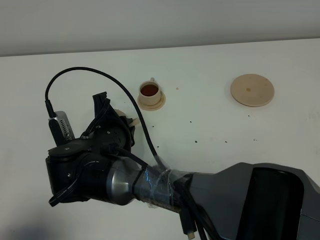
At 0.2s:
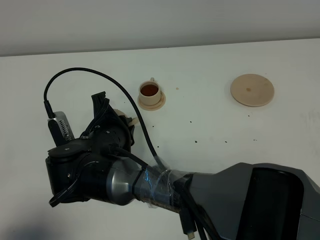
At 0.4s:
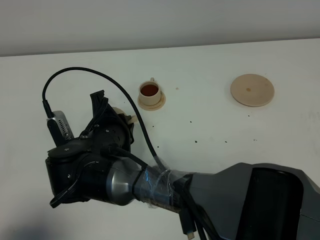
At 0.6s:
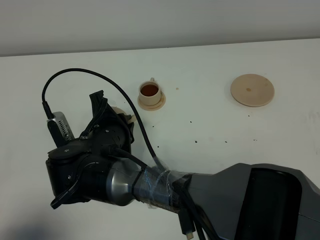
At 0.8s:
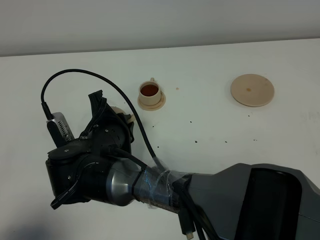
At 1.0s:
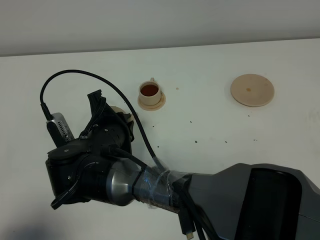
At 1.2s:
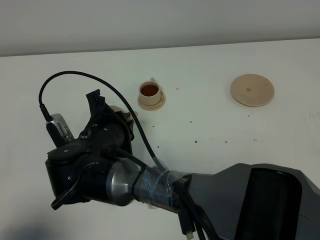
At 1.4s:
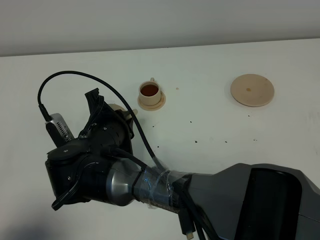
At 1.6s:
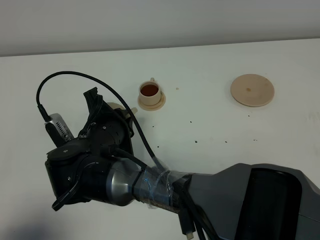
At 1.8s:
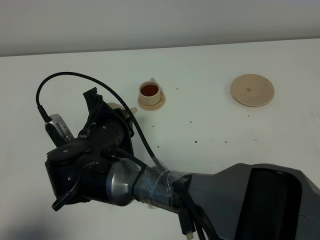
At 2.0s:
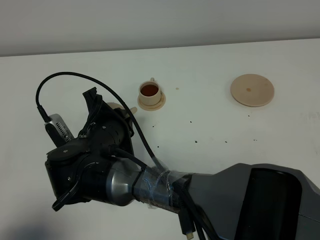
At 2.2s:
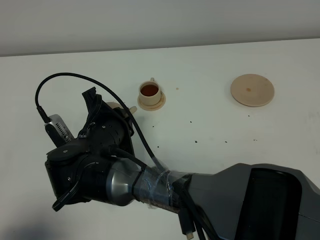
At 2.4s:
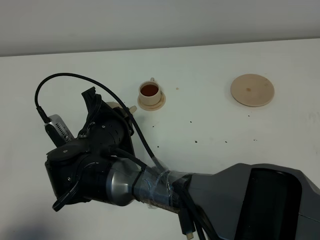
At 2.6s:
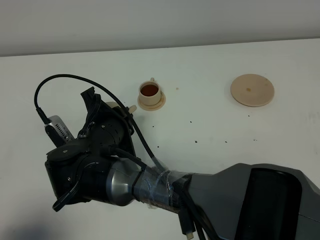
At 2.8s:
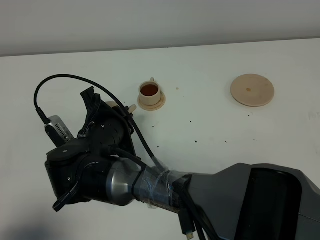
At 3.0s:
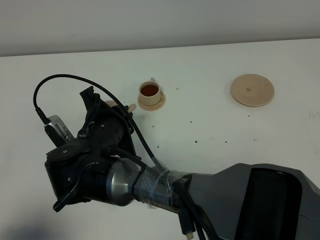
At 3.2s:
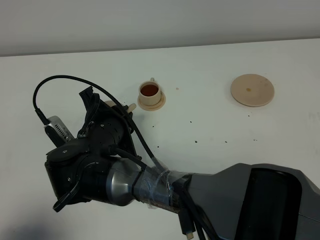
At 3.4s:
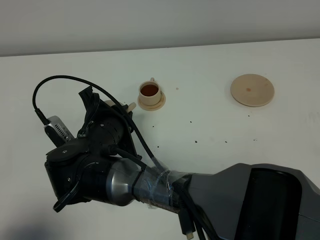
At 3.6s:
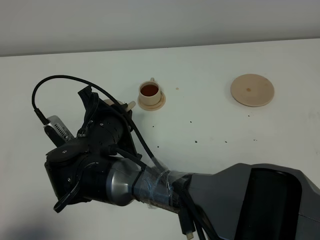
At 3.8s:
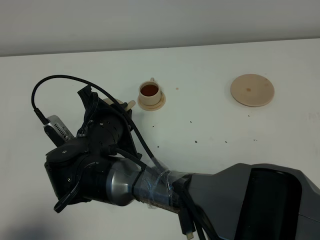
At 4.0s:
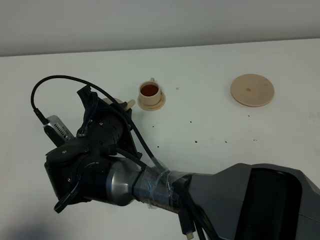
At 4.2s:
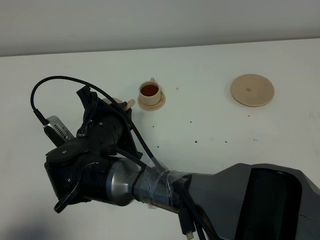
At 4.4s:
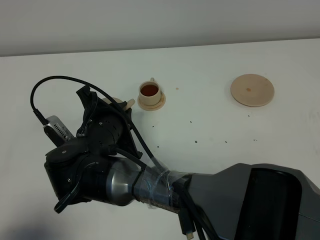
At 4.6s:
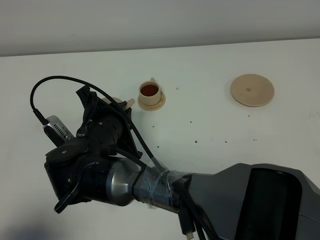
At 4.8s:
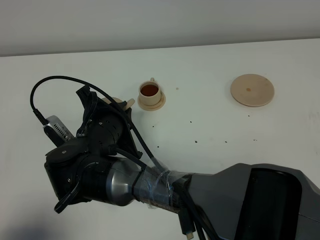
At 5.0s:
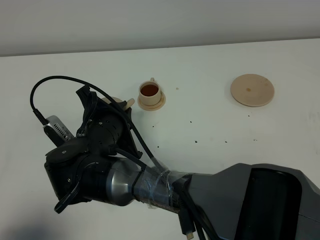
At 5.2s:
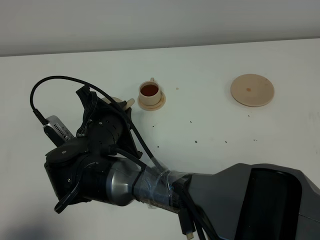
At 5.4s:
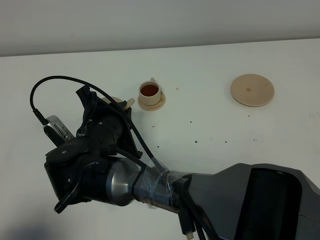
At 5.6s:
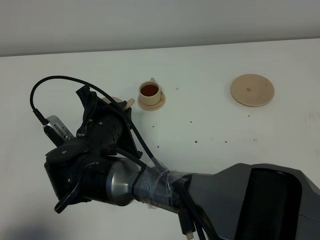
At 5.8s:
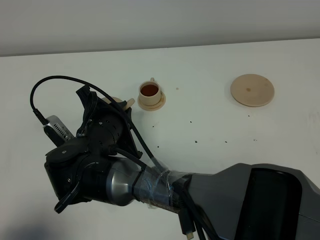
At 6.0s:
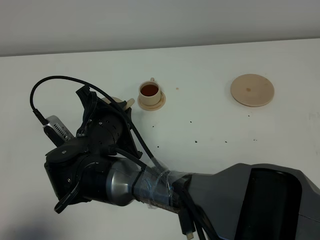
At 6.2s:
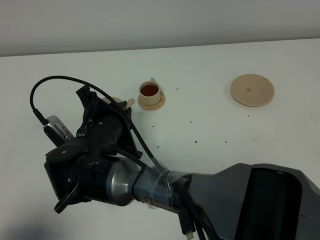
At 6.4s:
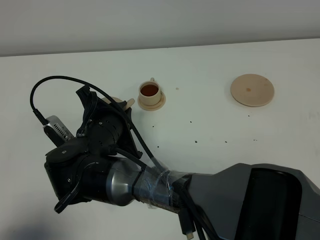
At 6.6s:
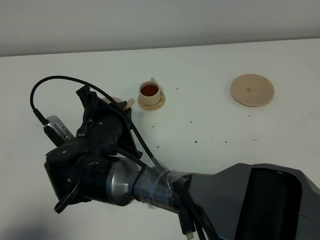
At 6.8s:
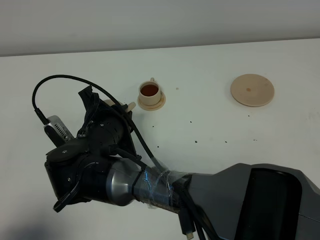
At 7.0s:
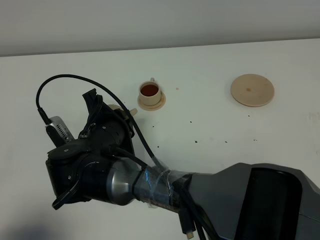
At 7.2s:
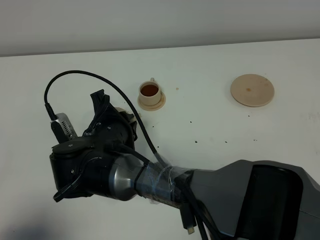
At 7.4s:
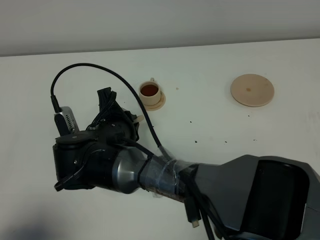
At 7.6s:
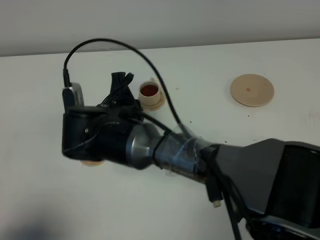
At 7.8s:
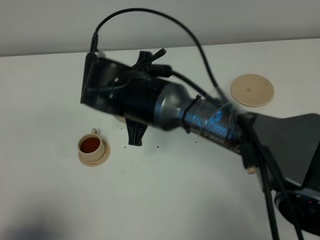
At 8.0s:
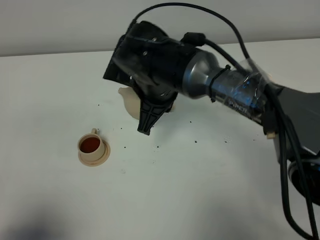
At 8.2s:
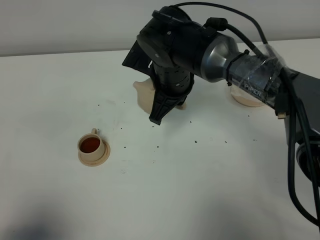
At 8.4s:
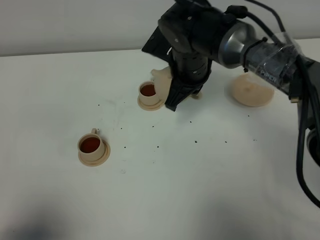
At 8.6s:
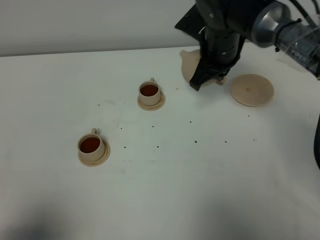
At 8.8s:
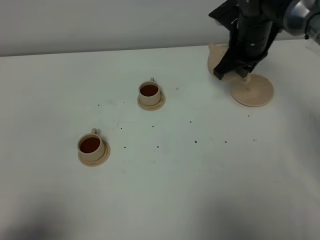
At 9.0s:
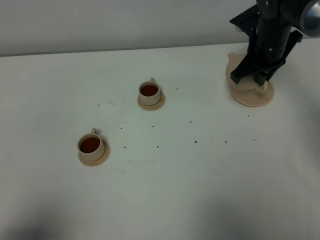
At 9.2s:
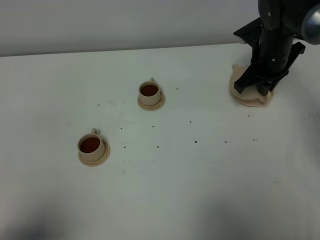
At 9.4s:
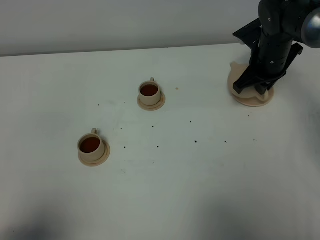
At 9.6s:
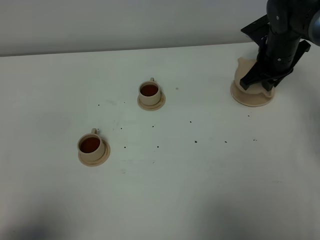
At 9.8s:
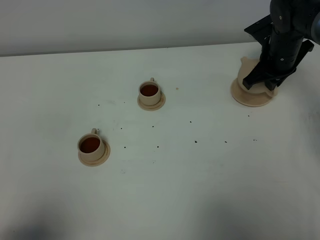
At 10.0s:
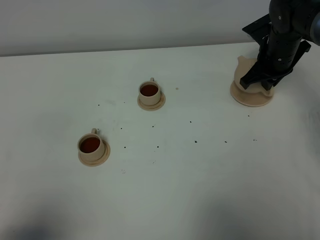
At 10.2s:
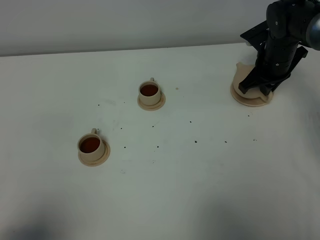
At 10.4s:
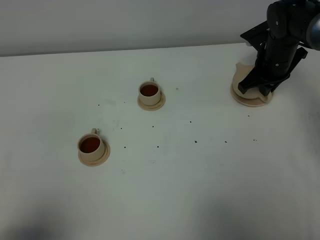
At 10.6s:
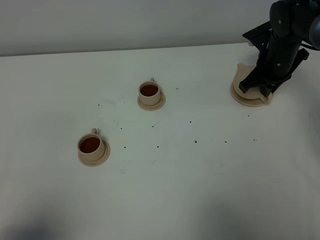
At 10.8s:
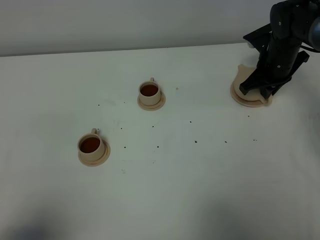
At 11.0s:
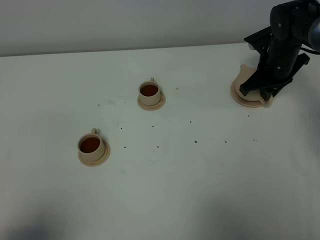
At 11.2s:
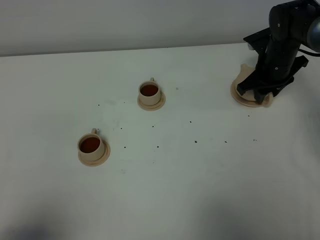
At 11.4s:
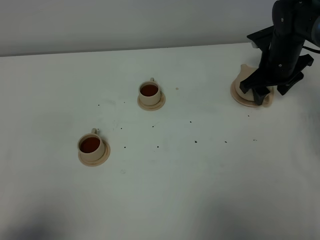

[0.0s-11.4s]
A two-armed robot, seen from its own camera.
Task of the whole recording: grasp the brown teapot and pour the tea into the two brown teacups one by one, put the brown teapot back in its original place.
Step, 0.0s to 7.4s: Pour tea into the teacup with the right gripper.
0.0s to 2.8s: The grippers make only small movements.
2.8s to 5.6s: Both grippers stay put.
5.6s to 7.2s: There are only small adjustments of the grippers.
7.2s to 8.6s: The right gripper shifts roughly 30 cm to the right, forward and upward.
8.6s to 10.0s: The right gripper heads to the right and downward, covering approximately 10 cm.
10.0s to 11.4s: The right gripper opens.

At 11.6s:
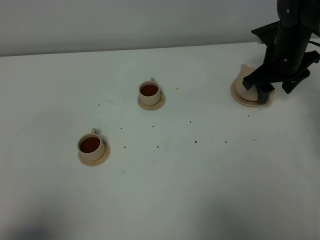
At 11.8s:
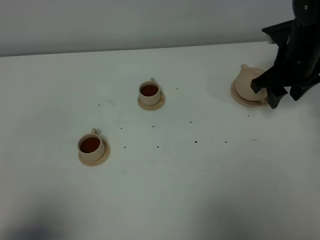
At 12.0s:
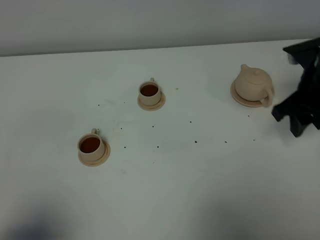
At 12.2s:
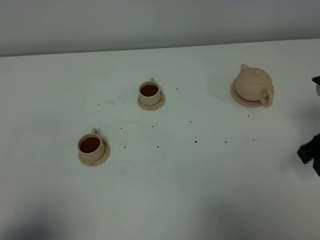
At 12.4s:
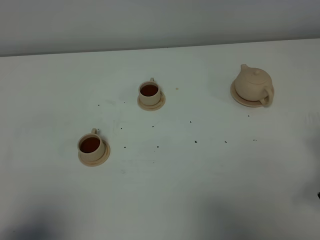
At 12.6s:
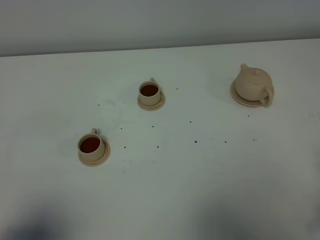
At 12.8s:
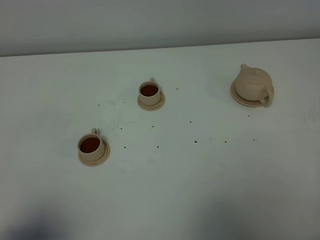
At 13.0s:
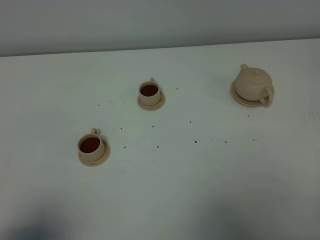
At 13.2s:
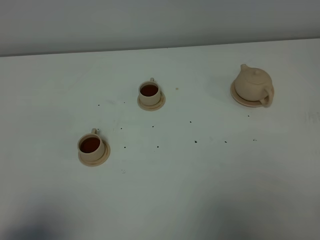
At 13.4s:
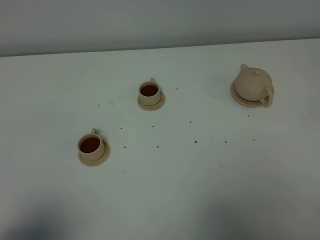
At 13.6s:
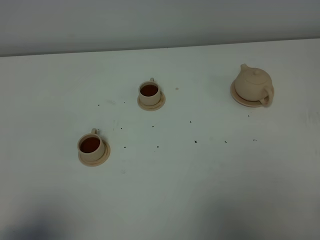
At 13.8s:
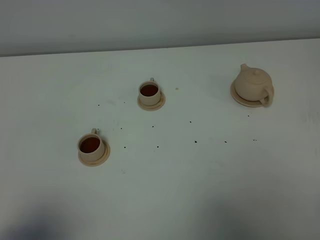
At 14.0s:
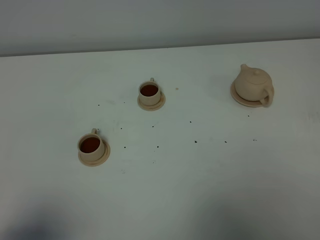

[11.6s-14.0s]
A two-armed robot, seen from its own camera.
Task of the whole recording: grasp the brown teapot and pour the tea into the two brown teacups one by one, put the brown teapot back in its original place.
11.6s to 12.8s: The right gripper heads backward, covering about 35 cm.

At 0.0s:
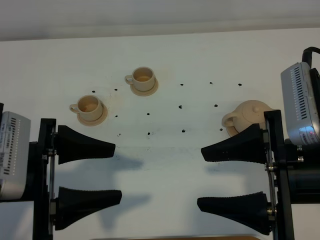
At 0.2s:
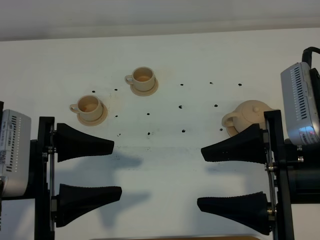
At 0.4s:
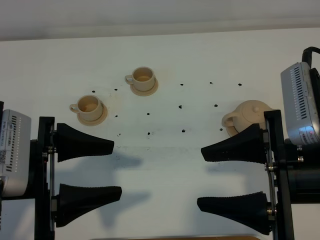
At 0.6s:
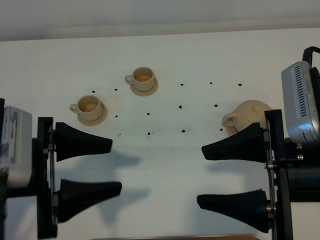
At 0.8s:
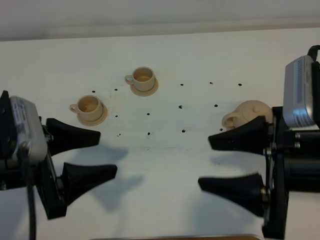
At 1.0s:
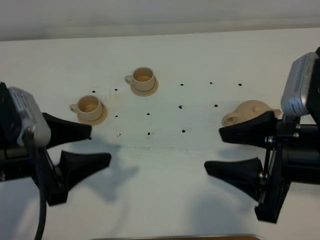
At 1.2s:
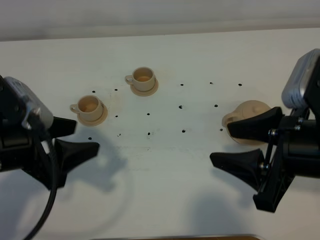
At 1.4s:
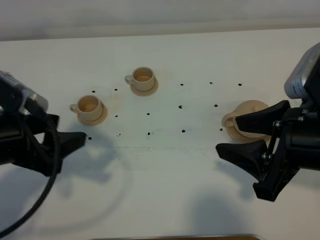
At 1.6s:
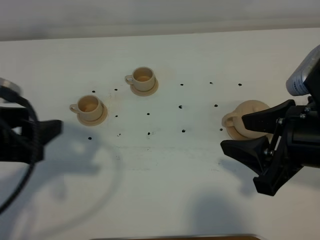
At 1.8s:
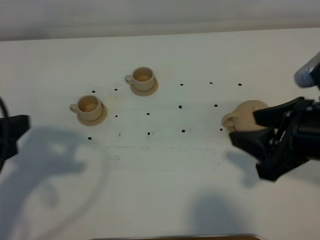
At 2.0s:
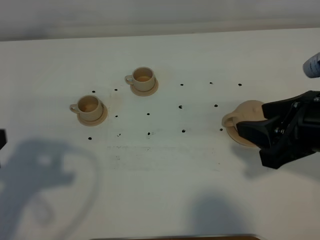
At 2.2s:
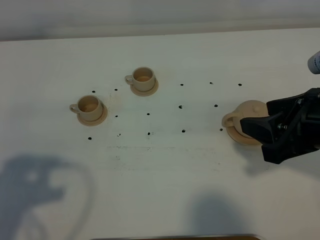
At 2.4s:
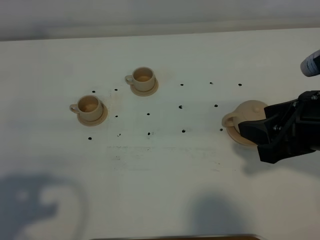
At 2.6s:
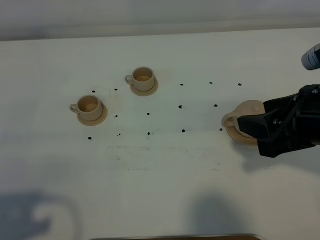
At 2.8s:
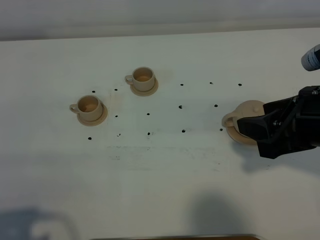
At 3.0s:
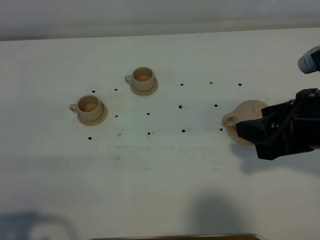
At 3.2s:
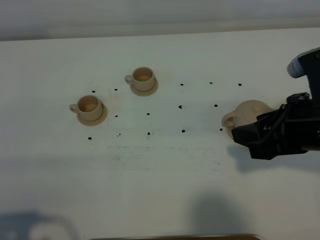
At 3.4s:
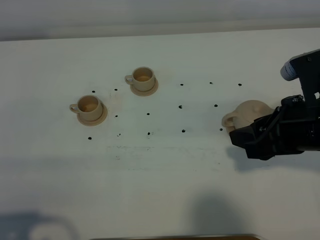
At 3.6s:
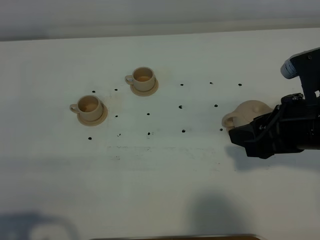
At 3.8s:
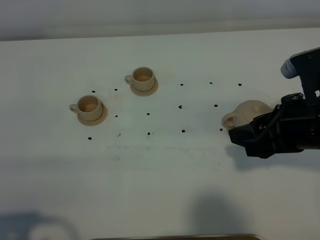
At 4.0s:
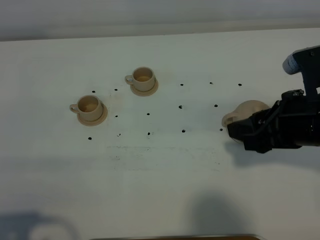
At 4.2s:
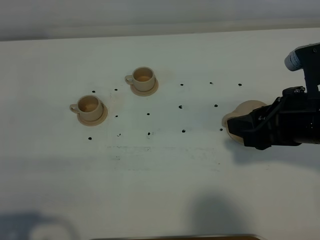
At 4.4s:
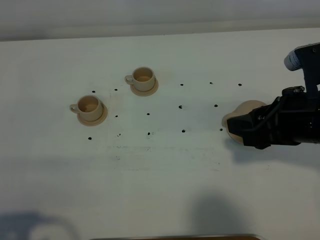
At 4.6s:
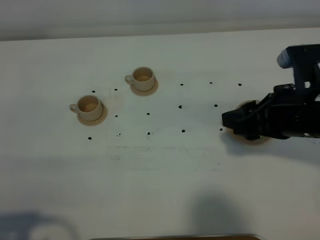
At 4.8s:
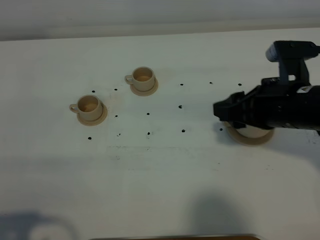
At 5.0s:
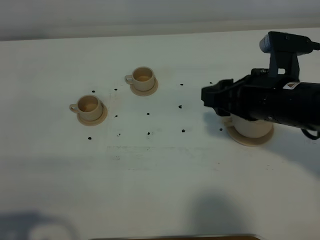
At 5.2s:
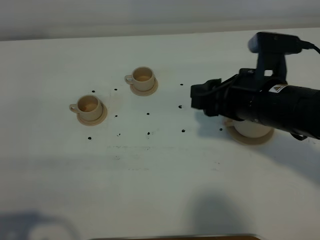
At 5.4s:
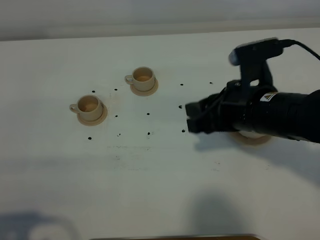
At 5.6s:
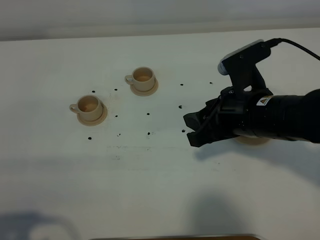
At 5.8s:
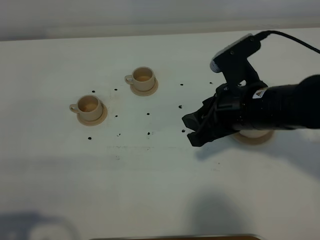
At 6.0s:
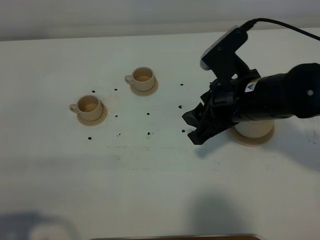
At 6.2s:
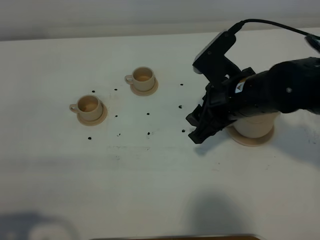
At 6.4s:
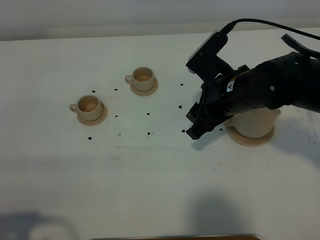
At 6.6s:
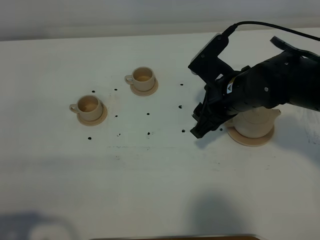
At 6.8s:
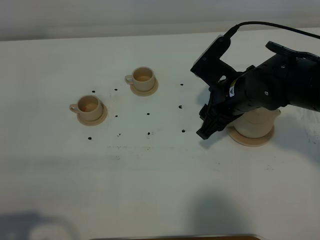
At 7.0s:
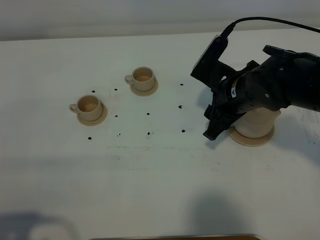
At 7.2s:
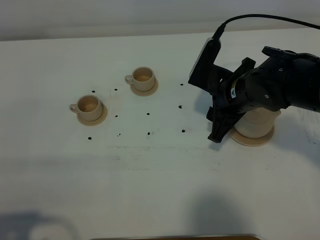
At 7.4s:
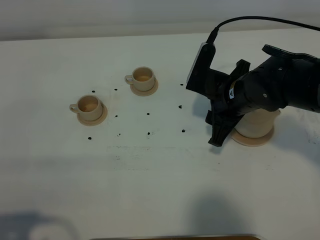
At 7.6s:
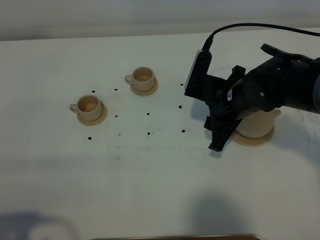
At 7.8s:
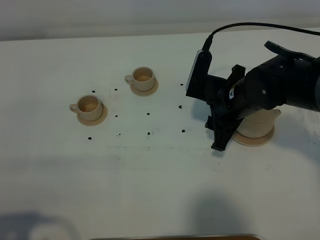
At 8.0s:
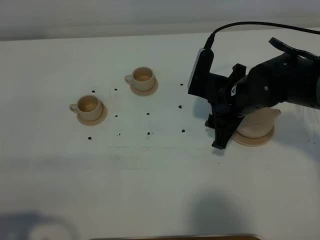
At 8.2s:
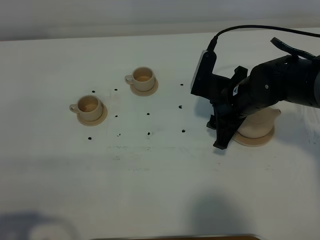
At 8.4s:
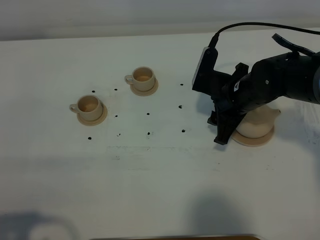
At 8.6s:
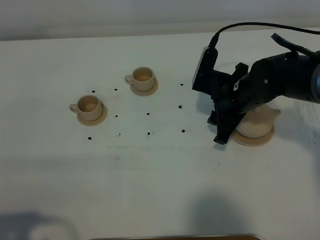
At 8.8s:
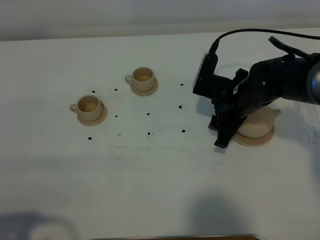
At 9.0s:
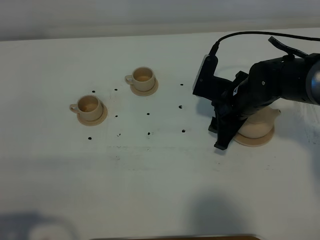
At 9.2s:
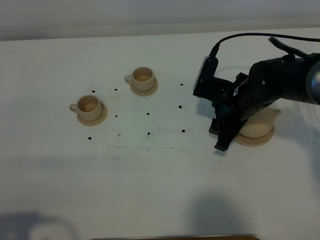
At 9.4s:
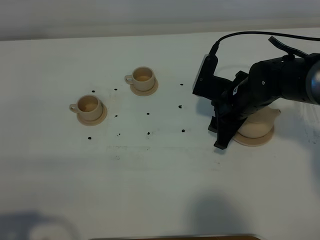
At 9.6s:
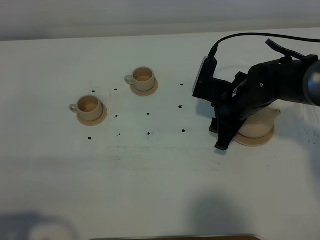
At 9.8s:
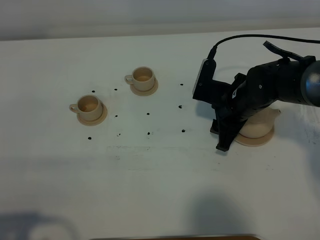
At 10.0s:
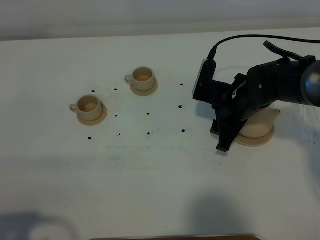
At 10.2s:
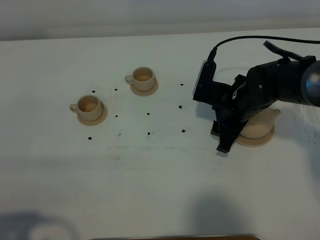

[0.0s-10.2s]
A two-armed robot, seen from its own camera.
Task of the whole recording: grasp the brown teapot and pour the tea into the two brown teacups one by one, put the brown teapot back in its original place.
0.0s to 1.4s: The left gripper changes place by about 5 cm.
1.4s to 3.0s: The left gripper shifts some 20 cm backward, and closes.
3.0s to 4.4s: The grippers stay close to where they were, moving slightly.
4.4s to 5.8s: The right gripper goes approximately 5 cm to the left.
5.8s to 7.2s: The right gripper moves forward, some 5 cm.
7.2s to 8.8s: There are only small adjustments of the grippers.
8.8s to 10.2s: Neither gripper changes place.
